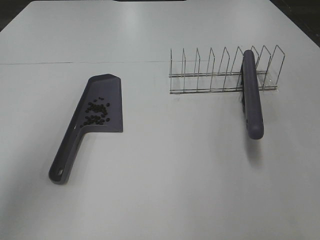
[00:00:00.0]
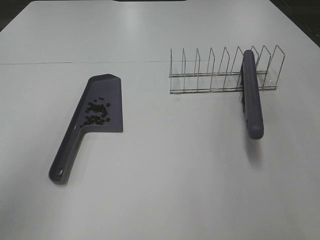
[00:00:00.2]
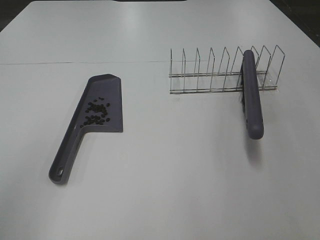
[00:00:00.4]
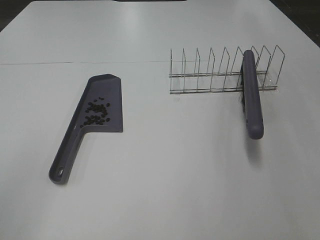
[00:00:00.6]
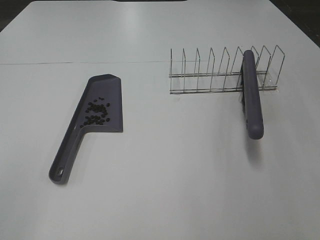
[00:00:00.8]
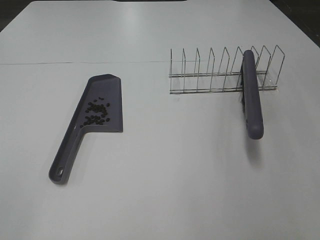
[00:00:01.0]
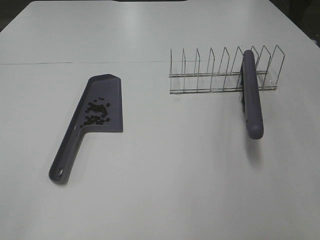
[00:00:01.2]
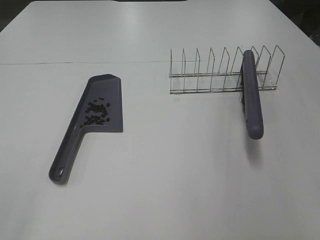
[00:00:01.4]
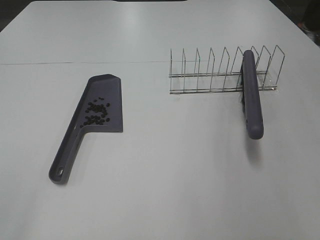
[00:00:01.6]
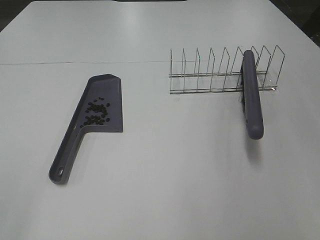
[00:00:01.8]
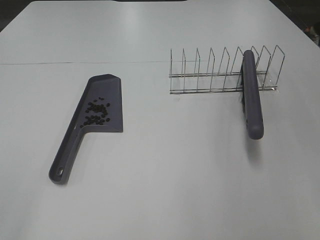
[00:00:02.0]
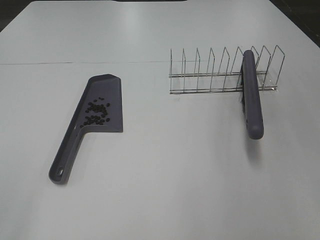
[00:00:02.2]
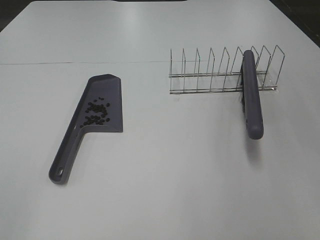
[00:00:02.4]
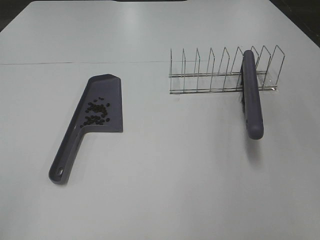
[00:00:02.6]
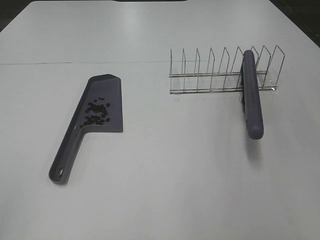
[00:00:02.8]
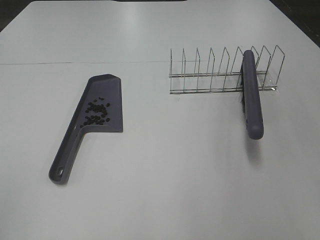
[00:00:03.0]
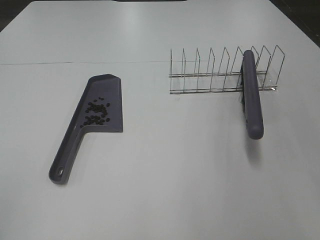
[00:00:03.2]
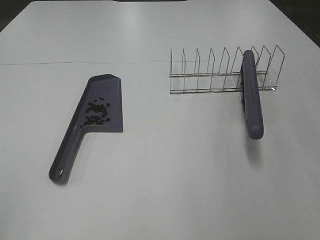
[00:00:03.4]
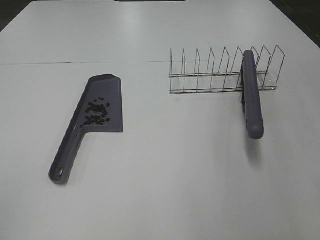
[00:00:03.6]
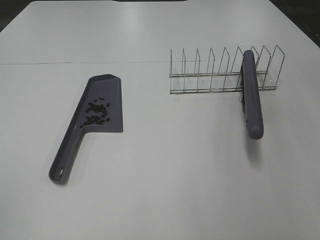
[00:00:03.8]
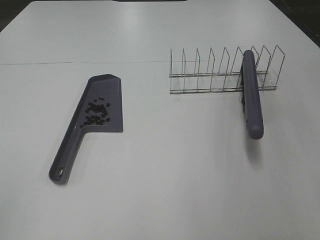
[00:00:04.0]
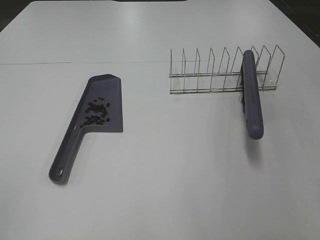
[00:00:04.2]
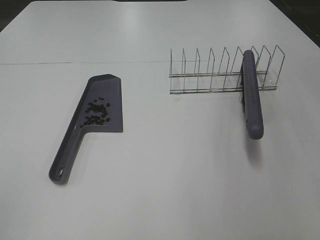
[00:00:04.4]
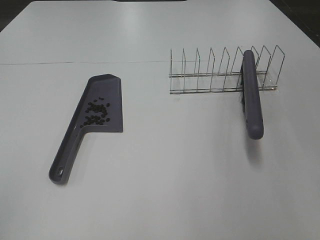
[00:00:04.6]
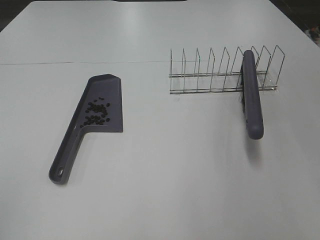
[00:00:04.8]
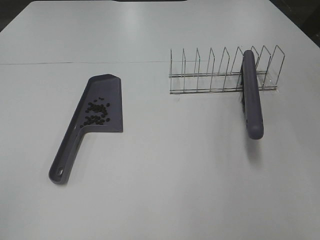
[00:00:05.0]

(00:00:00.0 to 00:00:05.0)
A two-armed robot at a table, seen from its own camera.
Task of the whole recording: Sweep Coffee Bean.
00:00:00.0 - 00:00:01.6: The left gripper travels backward and downward by approximately 20 cm.
00:00:03.4 - 00:00:05.0: Neither gripper changes place.
